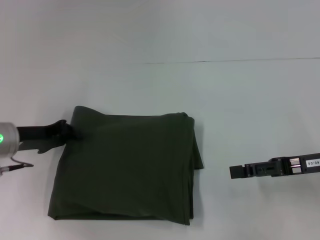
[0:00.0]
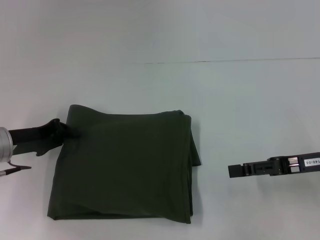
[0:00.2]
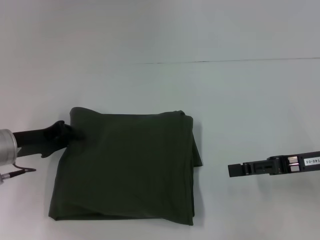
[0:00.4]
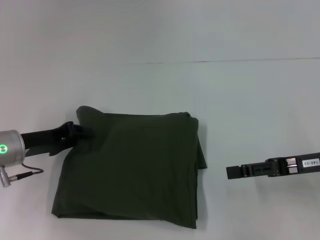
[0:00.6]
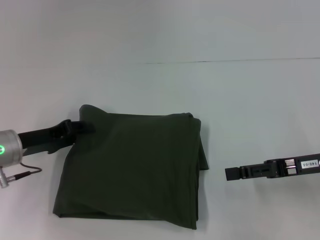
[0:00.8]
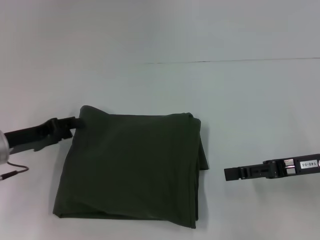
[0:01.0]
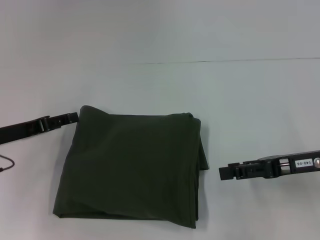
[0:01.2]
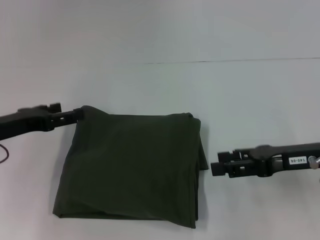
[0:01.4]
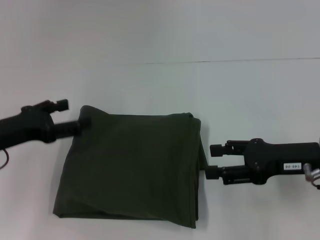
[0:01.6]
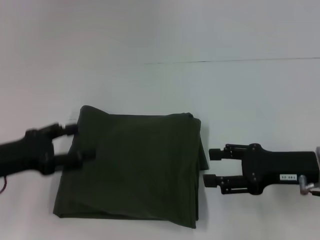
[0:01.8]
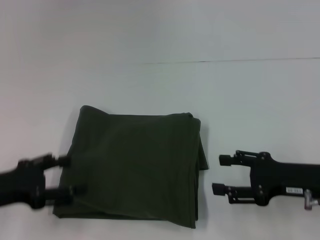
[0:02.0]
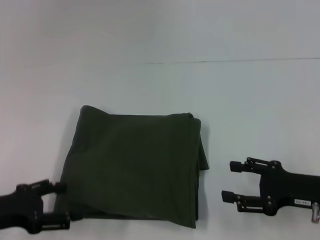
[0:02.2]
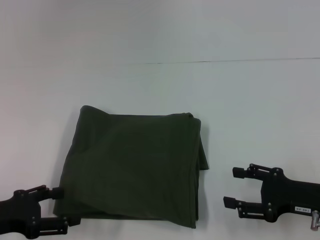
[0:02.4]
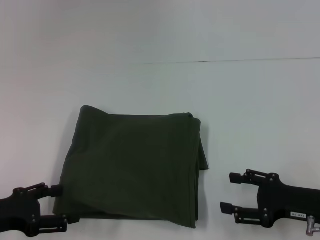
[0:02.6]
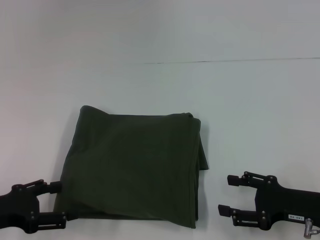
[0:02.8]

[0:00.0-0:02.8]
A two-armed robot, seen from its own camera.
0:00.0 to 0:01.4: The left gripper changes place by about 5 cm, and opens.
0:01.4 to 0:02.8: The right gripper goes roughly 10 cm downward and backward. The left gripper travels backward by about 10 cm.
